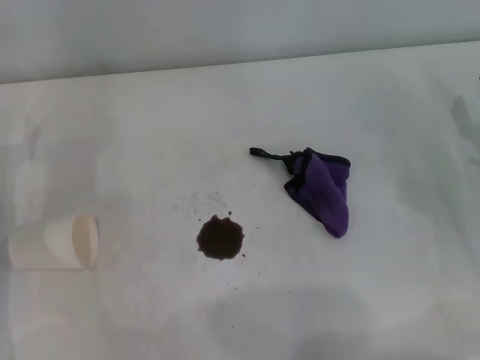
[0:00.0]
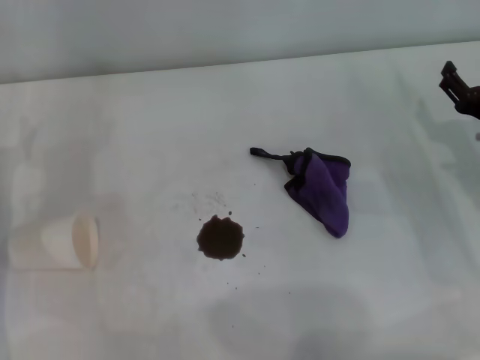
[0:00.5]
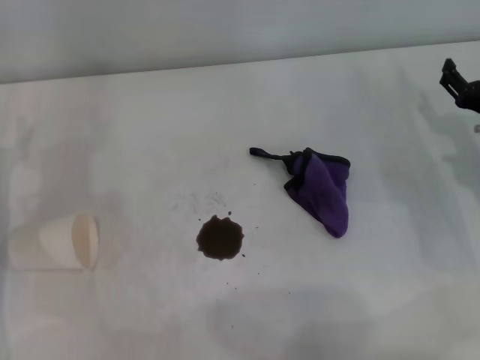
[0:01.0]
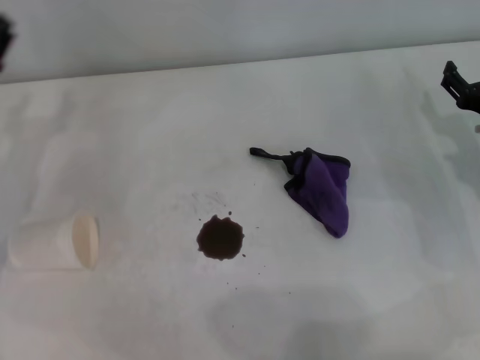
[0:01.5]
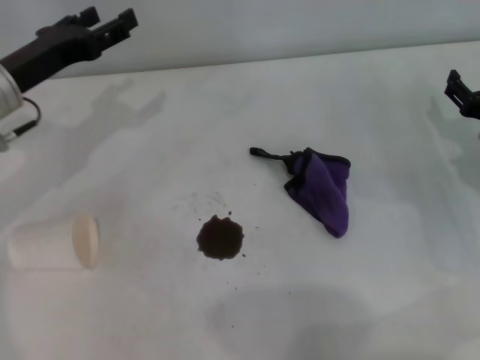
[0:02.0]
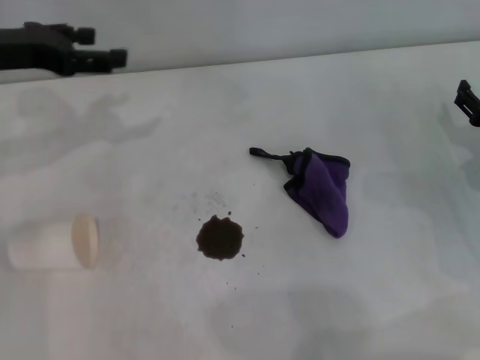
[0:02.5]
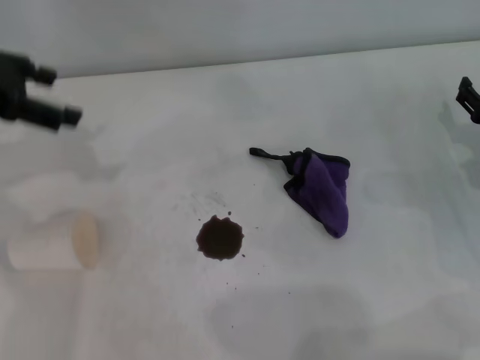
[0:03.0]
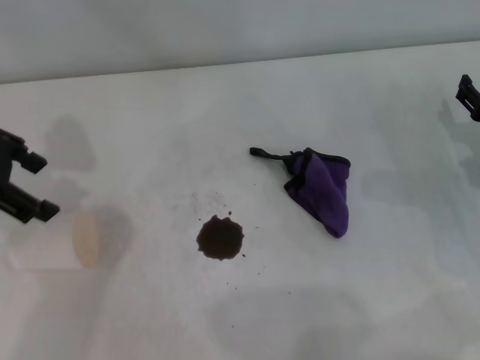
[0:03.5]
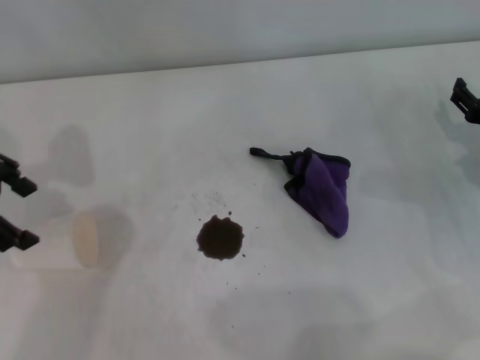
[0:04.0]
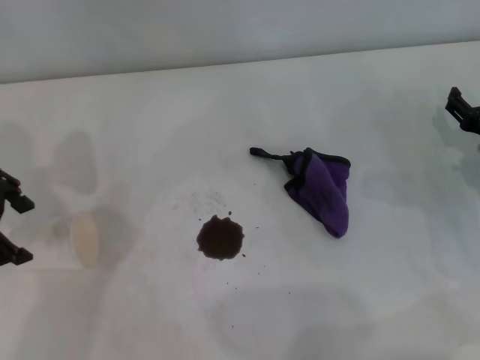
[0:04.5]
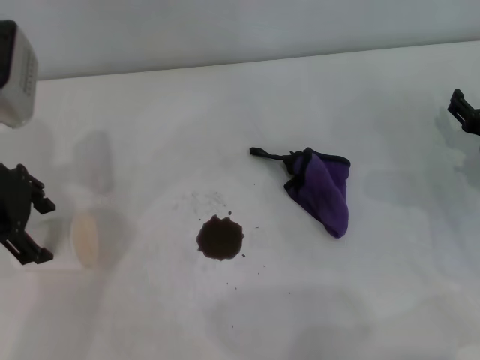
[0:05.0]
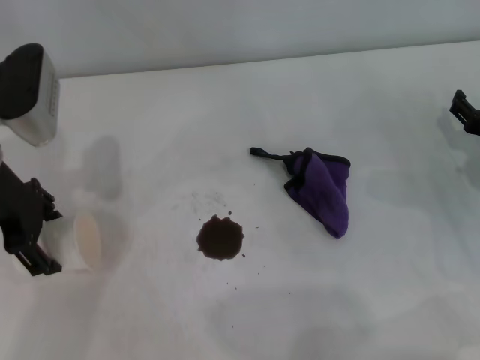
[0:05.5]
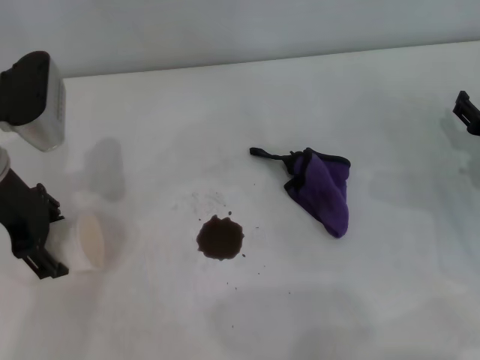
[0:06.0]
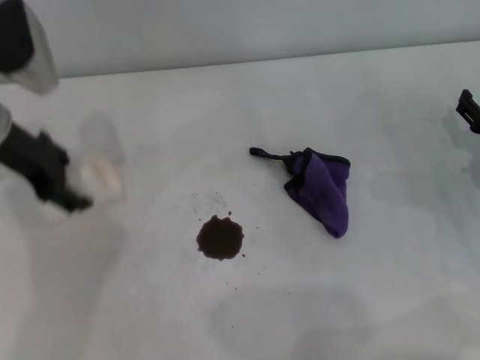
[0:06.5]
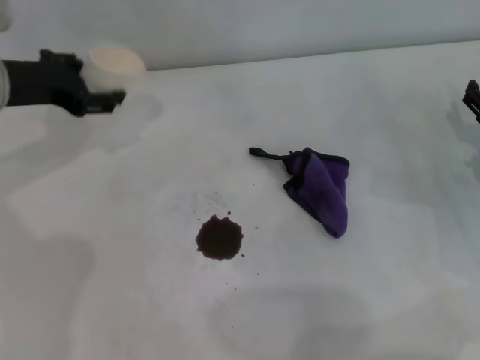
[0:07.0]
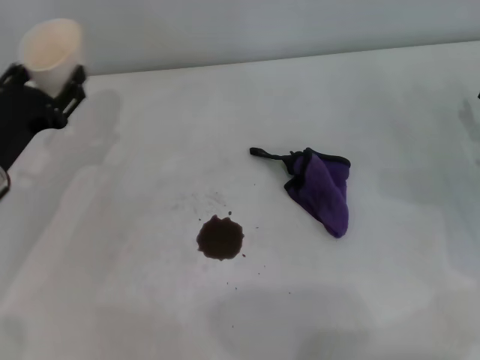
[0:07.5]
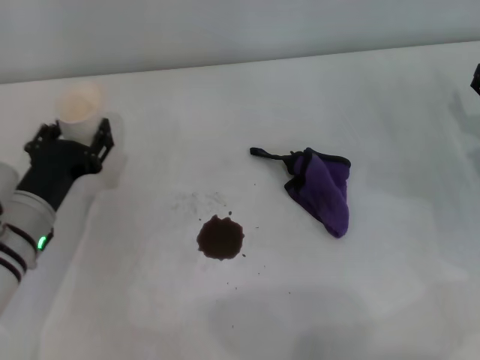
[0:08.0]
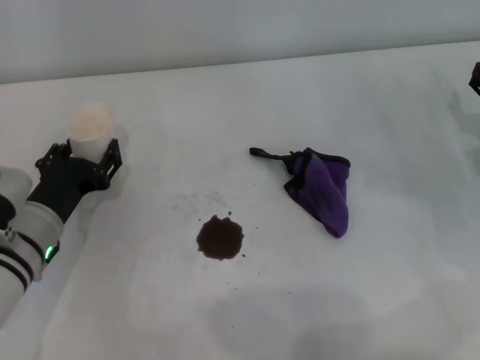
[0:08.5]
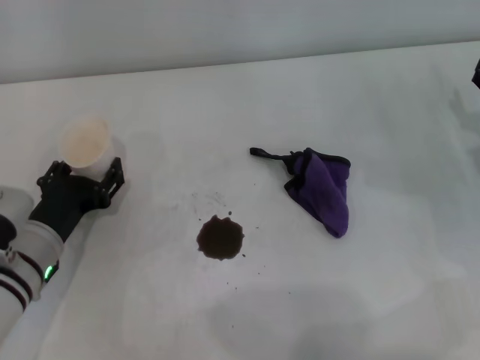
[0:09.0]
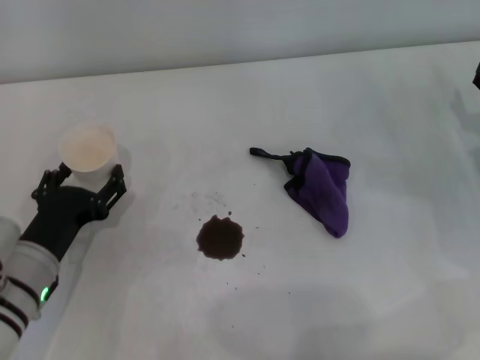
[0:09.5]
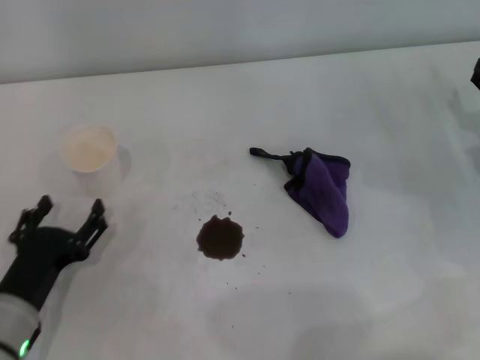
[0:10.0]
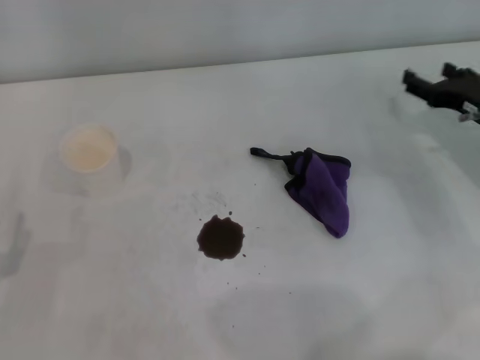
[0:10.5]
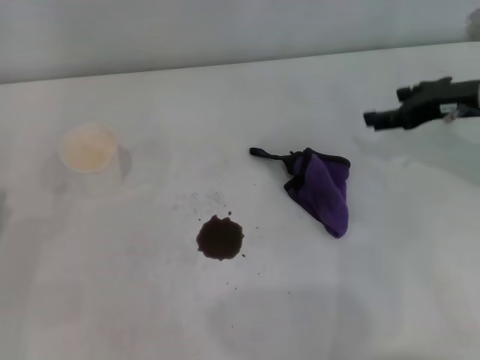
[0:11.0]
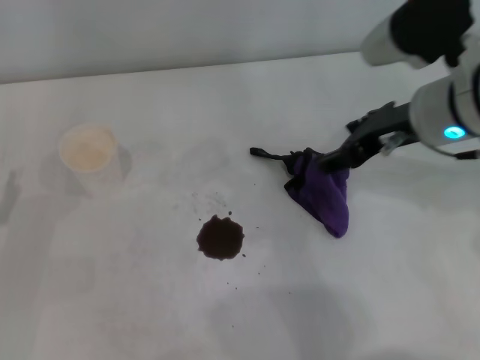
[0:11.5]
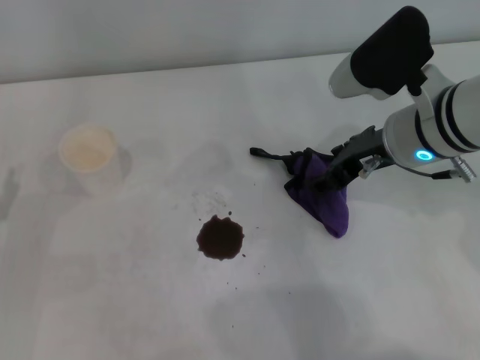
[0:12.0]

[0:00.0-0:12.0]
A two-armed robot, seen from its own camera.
Step, 0:00.0 to 0:06.0: Grasp the paper cup with the left gripper.
Step, 0:06.5 to 0:09.5: Stand the paper cup upright with the left gripper.
0:00.0 to 0:02.0: The left gripper travels forward and upward by about 10 cm.
0:02.0 to 0:04.0: The left gripper moves upward, some 10 cm.
0:04.0 to 0:06.0: The left gripper travels downward by some 10 cm.
0:06.0 to 0:08.0: The left gripper goes about 15 cm downward and backward, and closes its fingers.
0:08.0 to 0:10.0: The left gripper is displaced backward by roughly 10 cm, and opens its fingers.
0:10.0 to 0:12.0: The right gripper goes approximately 20 cm to the left and upward; the left gripper goes about 10 cm to the left.

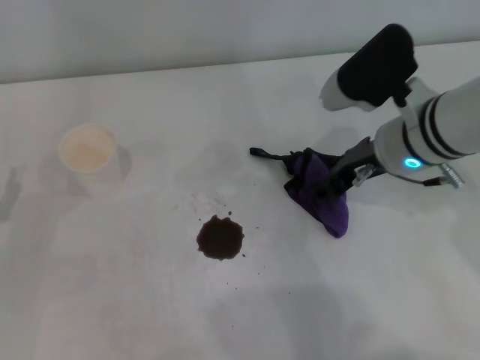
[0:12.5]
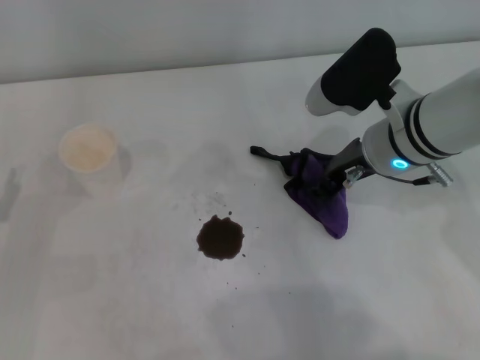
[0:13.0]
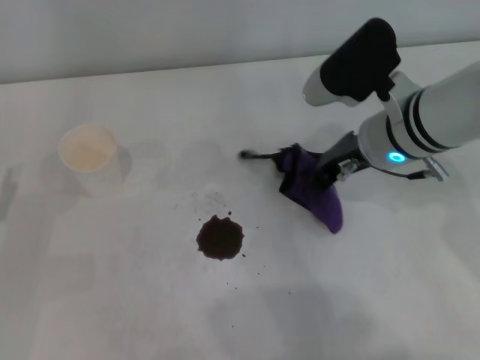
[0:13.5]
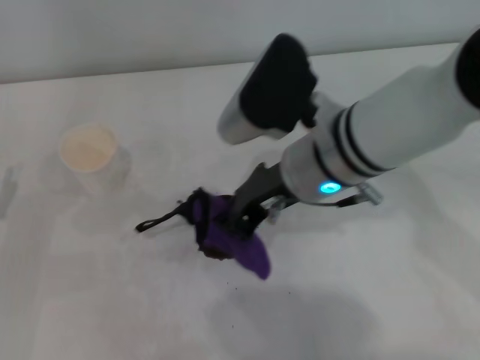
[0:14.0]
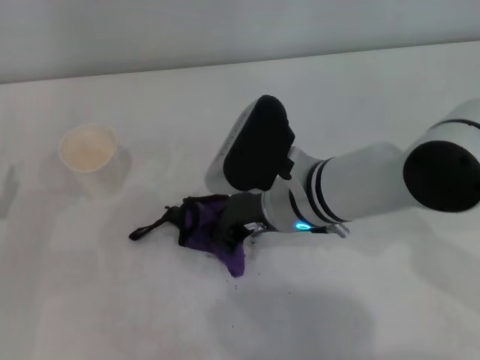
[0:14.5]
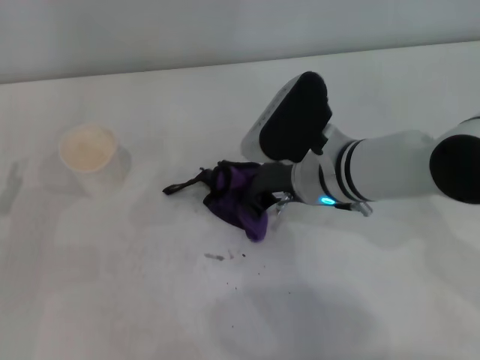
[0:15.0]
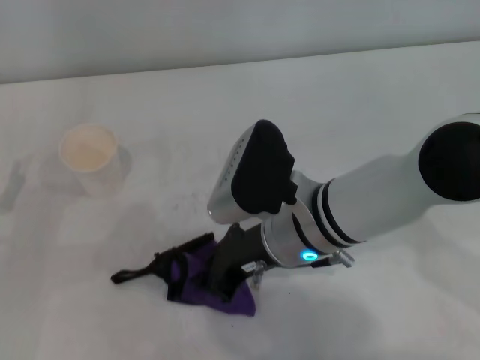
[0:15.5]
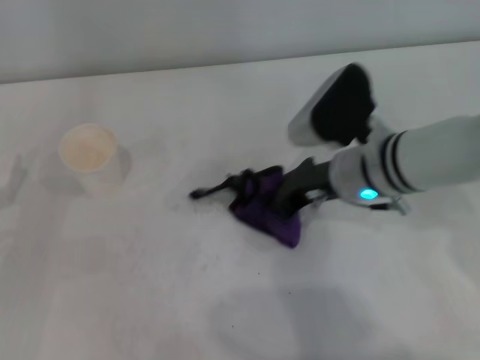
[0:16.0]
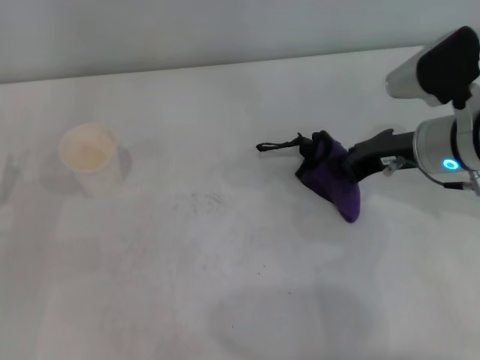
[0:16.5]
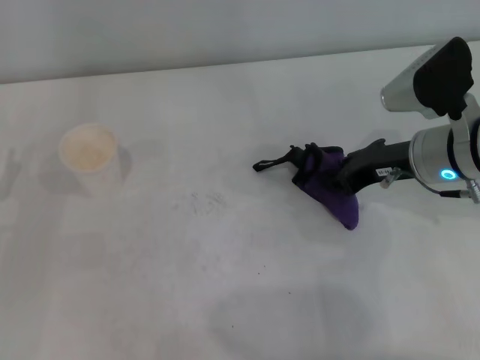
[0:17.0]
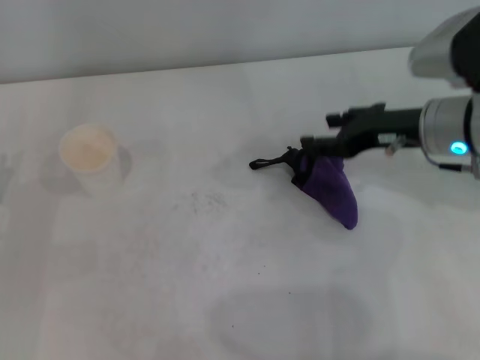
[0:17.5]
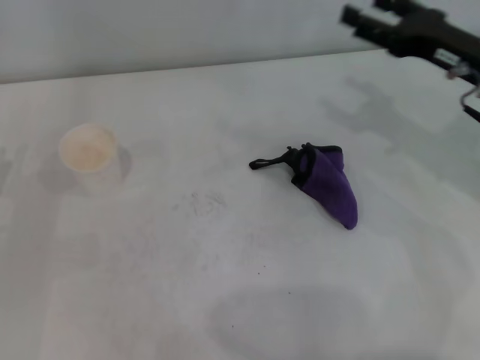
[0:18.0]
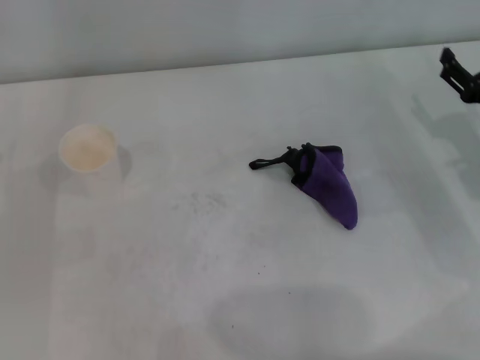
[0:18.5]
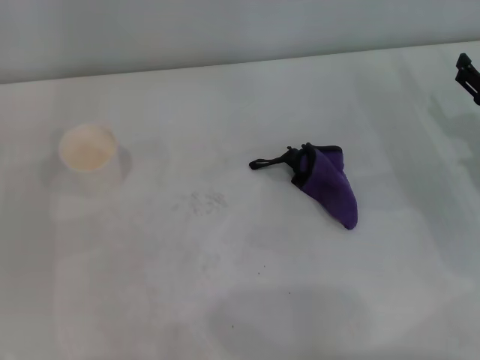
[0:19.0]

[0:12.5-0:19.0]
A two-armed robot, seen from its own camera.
Step, 0:13.5 to 0:16.0: Wipe the stains off the table with the right gripper.
Step, 0:16.5 to 0:17.0: Place the rag on the table with the right gripper.
0:12.5 to 0:14.5: The right gripper travels to the left by approximately 10 cm, and closes its fingers.
0:14.5 to 0:17.0: The right gripper goes approximately 15 cm to the right.
0:17.0 to 0:19.0: The right gripper moves to the right, about 10 cm, and opens up.
